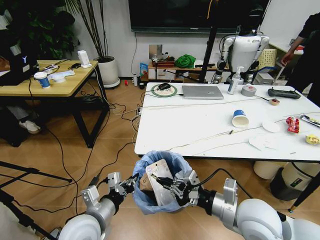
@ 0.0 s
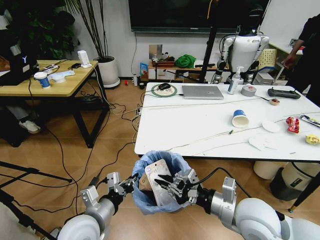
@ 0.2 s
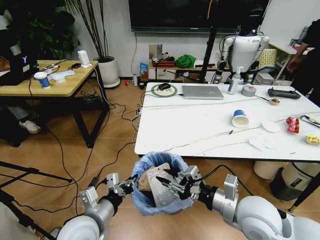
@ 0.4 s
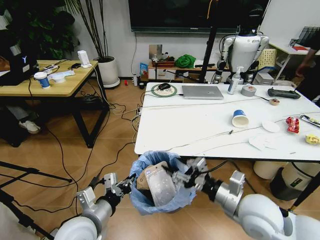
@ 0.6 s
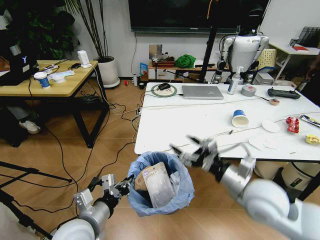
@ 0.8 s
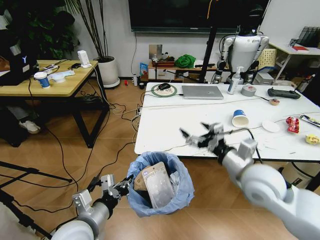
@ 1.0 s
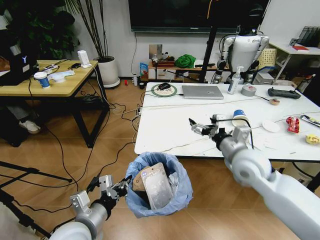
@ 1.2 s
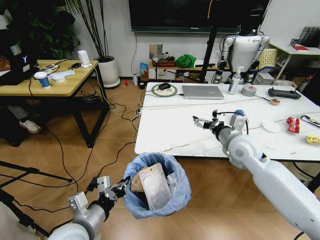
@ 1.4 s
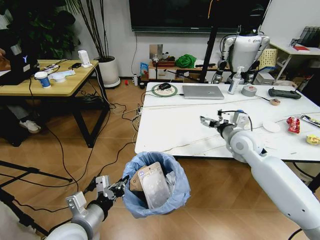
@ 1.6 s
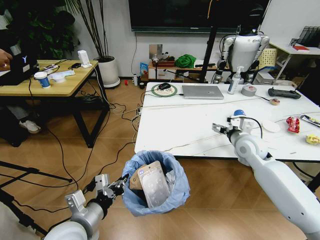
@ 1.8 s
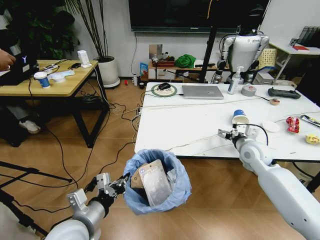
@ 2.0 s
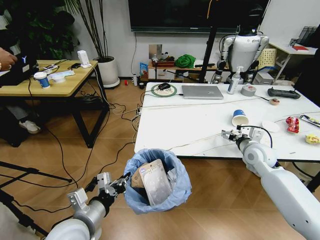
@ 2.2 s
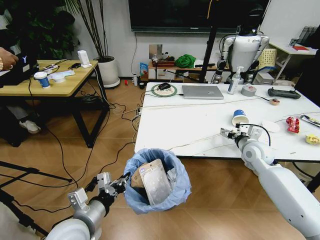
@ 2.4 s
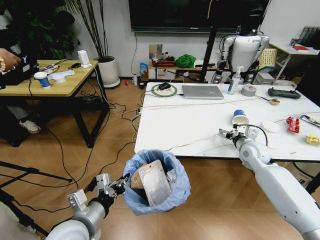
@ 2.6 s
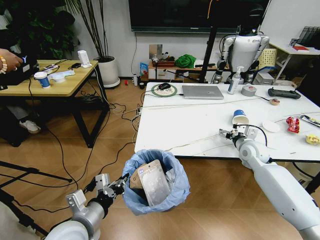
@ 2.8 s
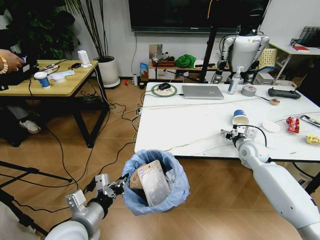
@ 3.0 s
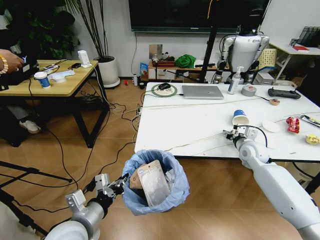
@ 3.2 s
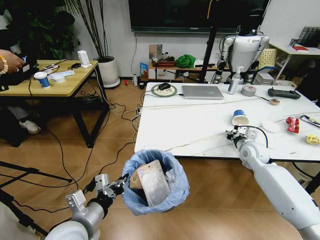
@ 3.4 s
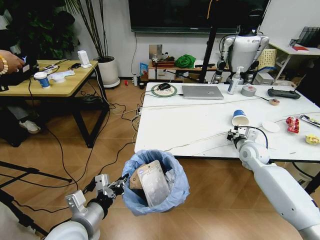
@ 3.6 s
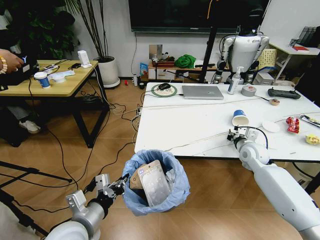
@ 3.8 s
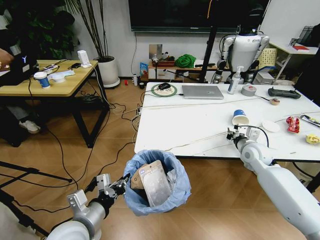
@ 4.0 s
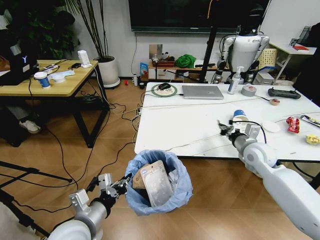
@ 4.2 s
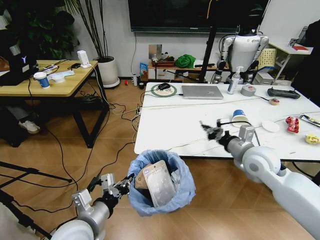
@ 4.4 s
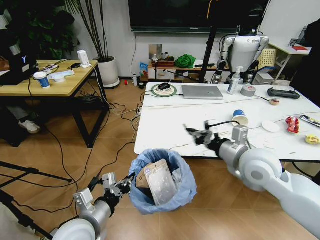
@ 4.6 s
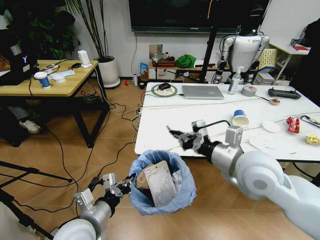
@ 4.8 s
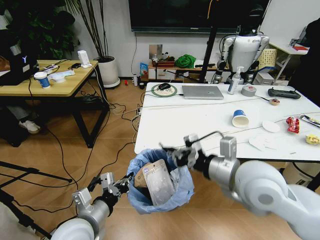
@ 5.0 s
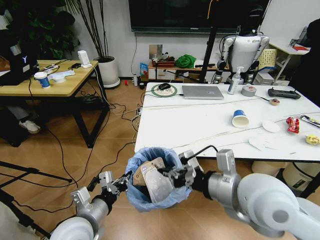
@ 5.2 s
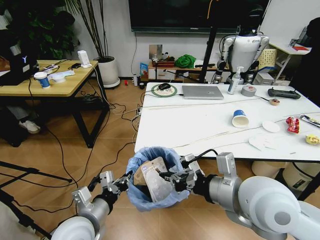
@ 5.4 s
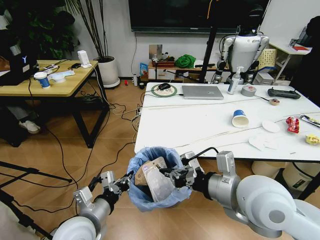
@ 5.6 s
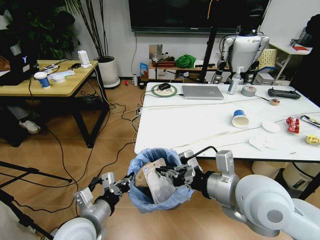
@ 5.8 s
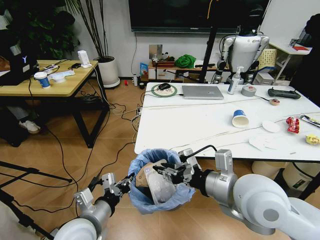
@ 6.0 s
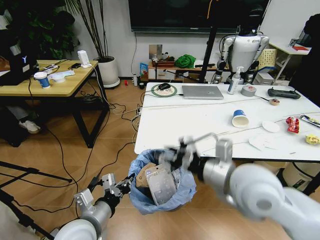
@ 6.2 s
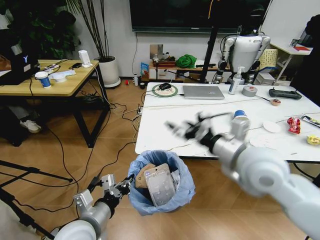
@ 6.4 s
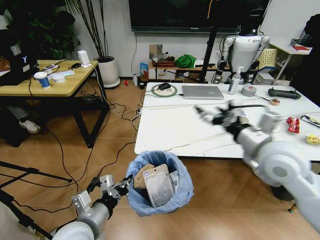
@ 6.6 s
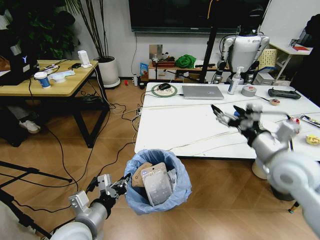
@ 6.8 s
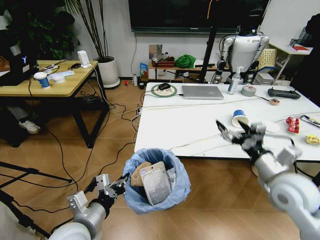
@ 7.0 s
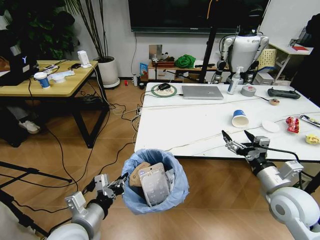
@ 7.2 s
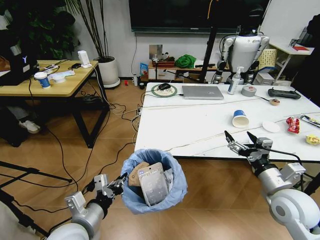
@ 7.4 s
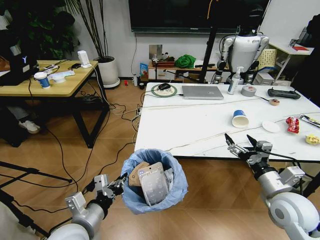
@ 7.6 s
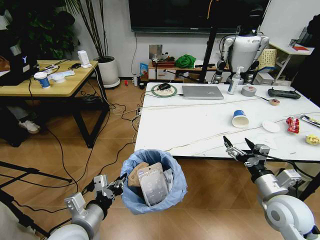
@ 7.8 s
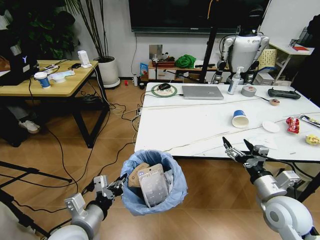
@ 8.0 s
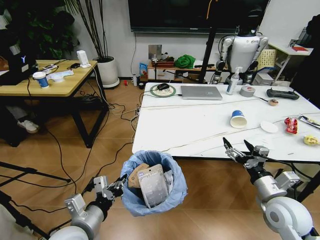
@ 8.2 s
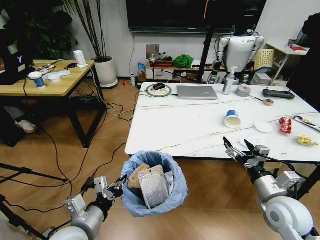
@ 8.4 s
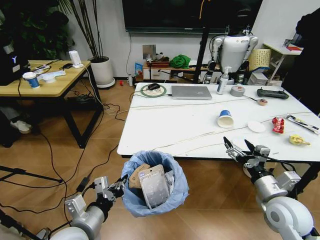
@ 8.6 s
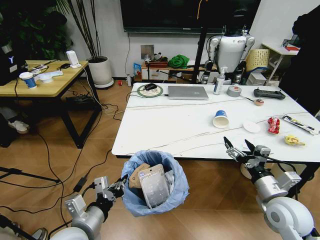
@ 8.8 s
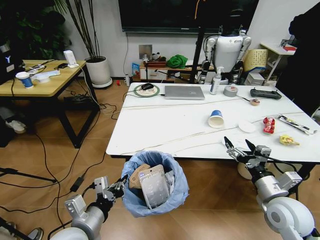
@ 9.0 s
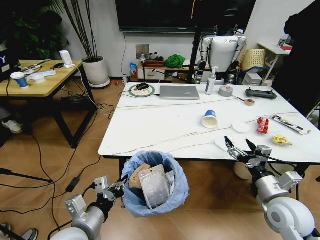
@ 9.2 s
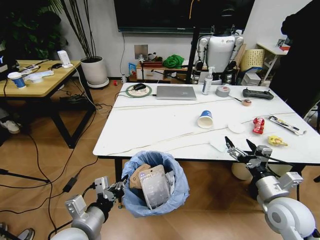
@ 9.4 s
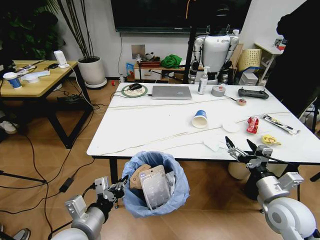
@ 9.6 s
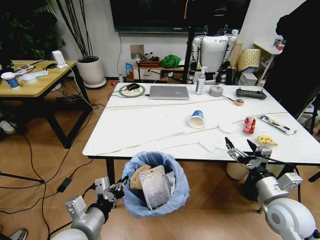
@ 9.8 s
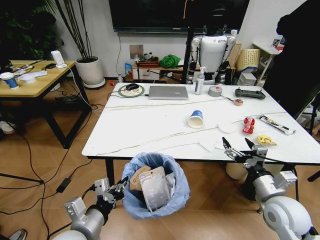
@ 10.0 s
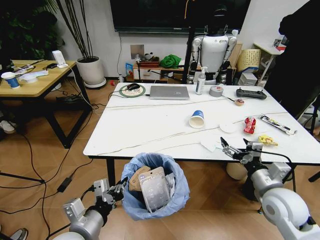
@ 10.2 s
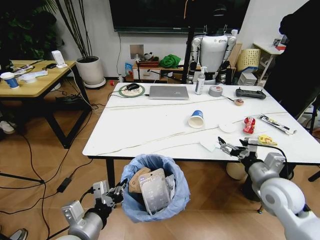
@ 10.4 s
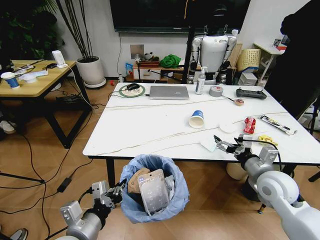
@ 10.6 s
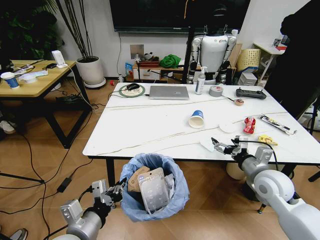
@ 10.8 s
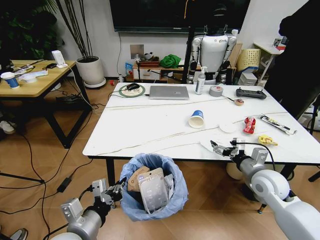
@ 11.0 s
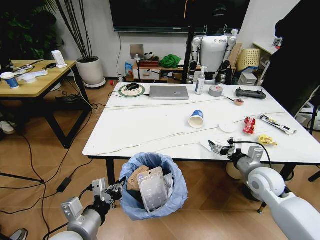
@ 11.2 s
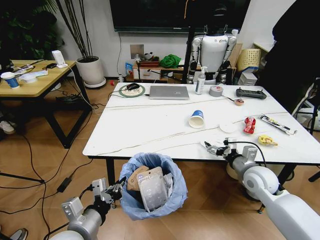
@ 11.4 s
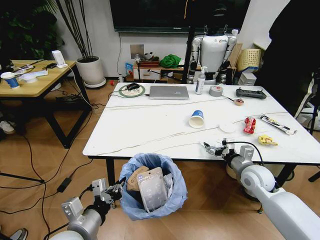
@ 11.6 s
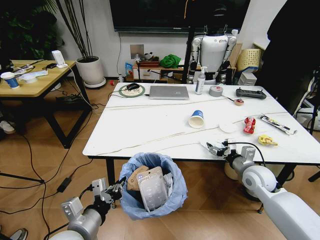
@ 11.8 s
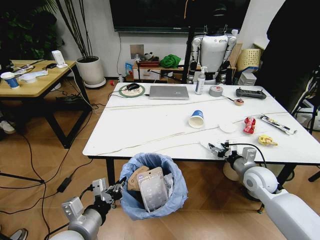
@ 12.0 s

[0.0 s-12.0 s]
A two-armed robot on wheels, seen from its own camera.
Task of the whole recording: Pick up the trash bin and place the trash from the table into it.
0.0 to 1.6 s: The right gripper moves forward, approximately 20 cm, and opens up.
1.6 to 3.0 s: The right gripper moves downward and to the right, approximately 10 cm.
3.0 to 4.4 s: The right gripper moves backward, upward and to the left, some 15 cm, and closes up.
4.4 to 6.0 s: The right gripper is displaced backward, to the left and upward by some 20 cm.
6.0 to 7.6 s: The right gripper shifts about 20 cm to the right and downward, and opens its fingers.
10.4 to 12.0 s: The right gripper heads forward and downward, covering roughly 10 cm.

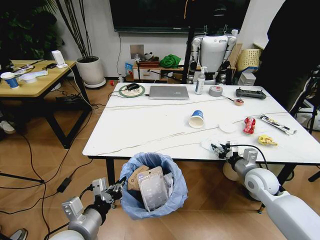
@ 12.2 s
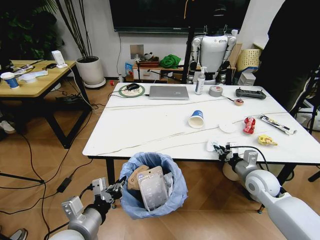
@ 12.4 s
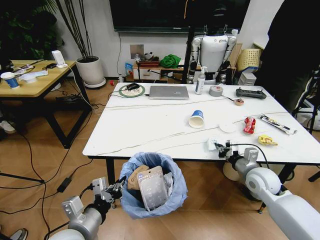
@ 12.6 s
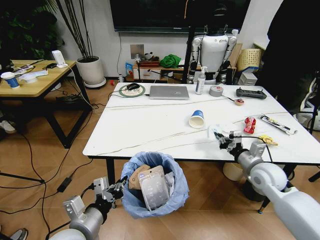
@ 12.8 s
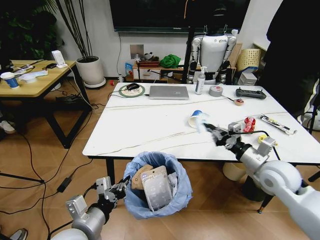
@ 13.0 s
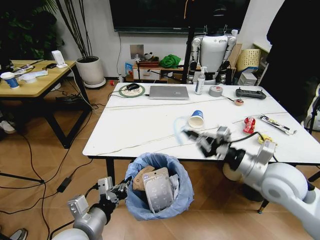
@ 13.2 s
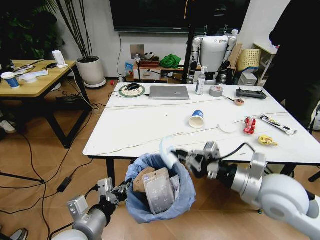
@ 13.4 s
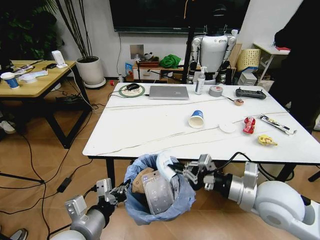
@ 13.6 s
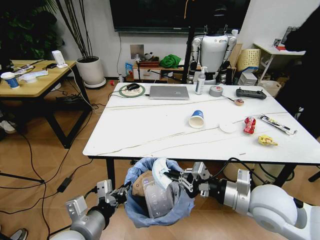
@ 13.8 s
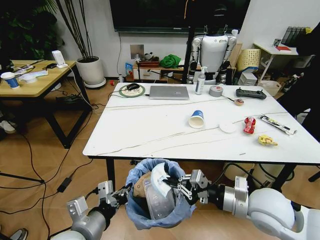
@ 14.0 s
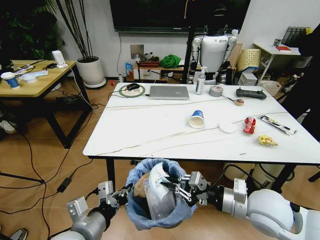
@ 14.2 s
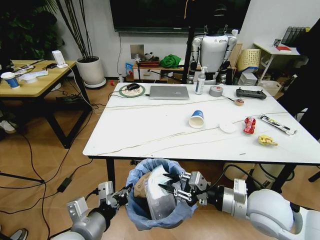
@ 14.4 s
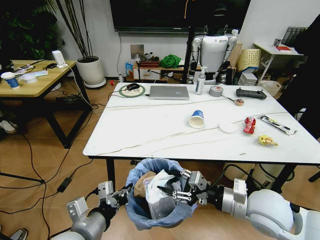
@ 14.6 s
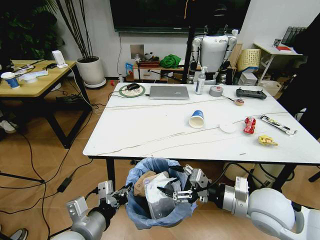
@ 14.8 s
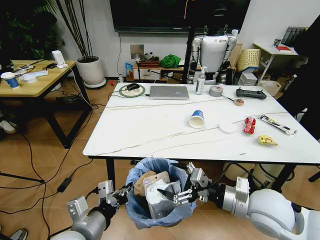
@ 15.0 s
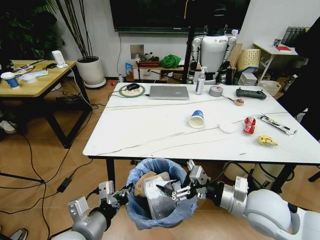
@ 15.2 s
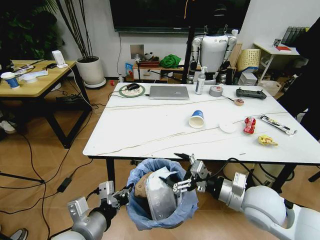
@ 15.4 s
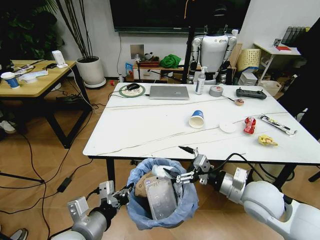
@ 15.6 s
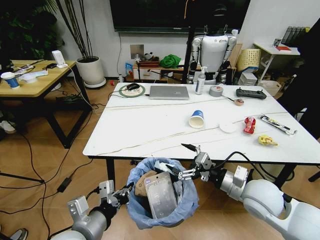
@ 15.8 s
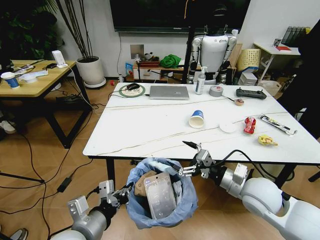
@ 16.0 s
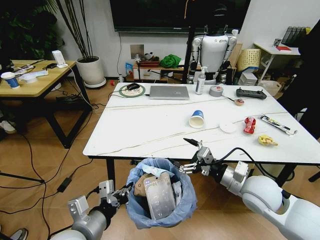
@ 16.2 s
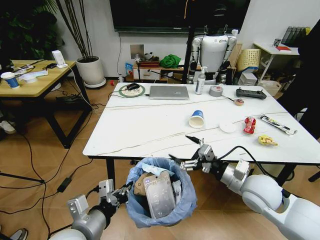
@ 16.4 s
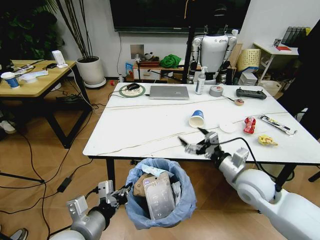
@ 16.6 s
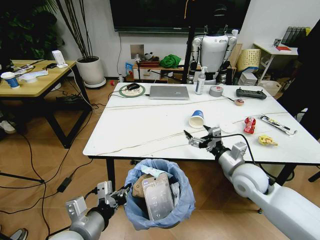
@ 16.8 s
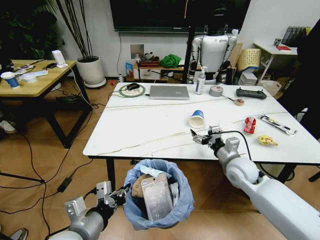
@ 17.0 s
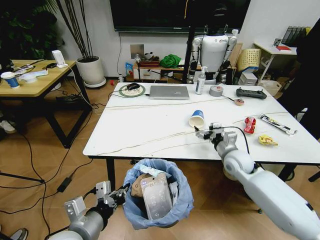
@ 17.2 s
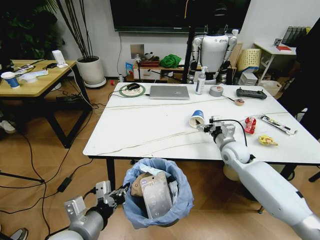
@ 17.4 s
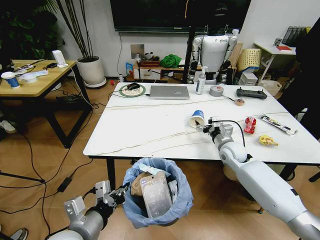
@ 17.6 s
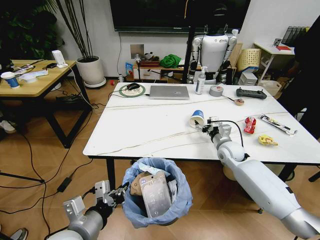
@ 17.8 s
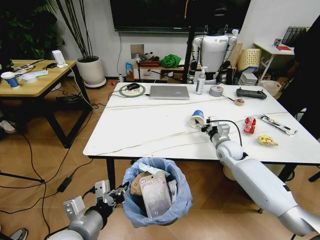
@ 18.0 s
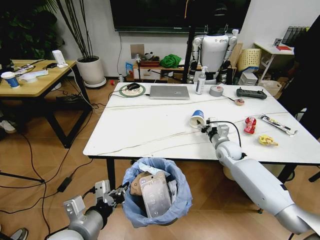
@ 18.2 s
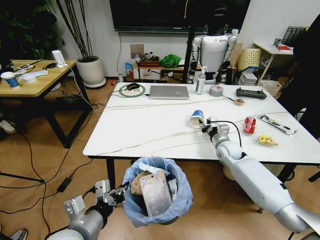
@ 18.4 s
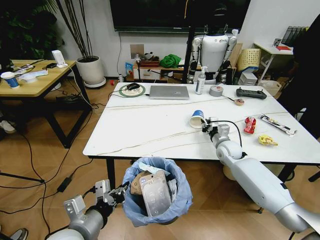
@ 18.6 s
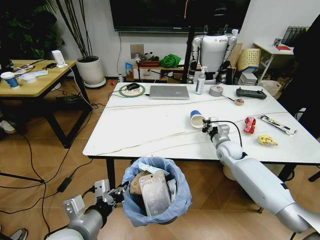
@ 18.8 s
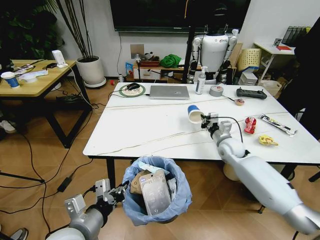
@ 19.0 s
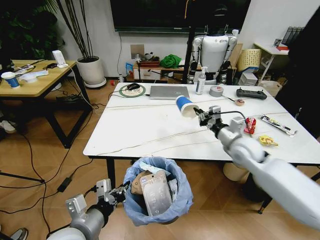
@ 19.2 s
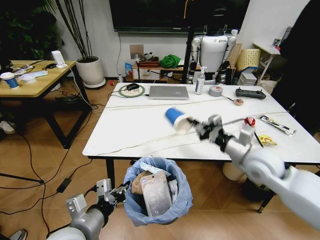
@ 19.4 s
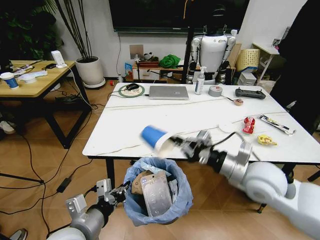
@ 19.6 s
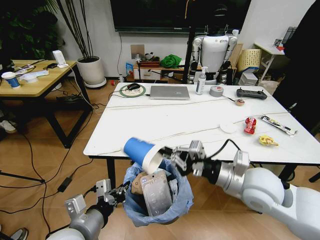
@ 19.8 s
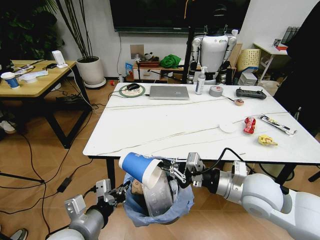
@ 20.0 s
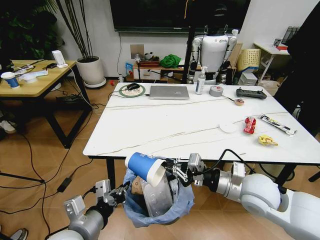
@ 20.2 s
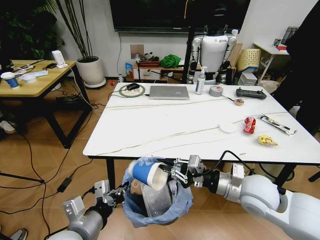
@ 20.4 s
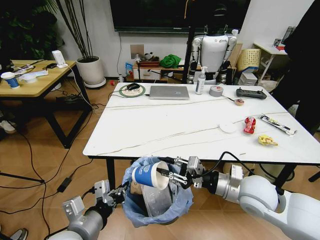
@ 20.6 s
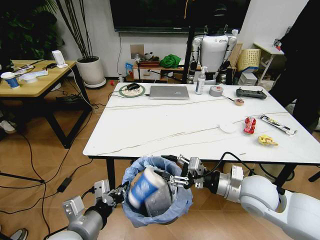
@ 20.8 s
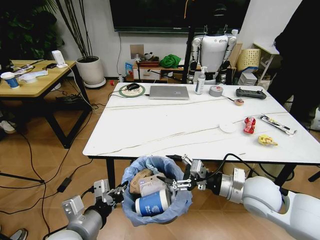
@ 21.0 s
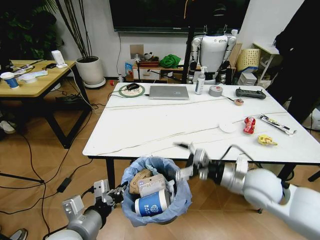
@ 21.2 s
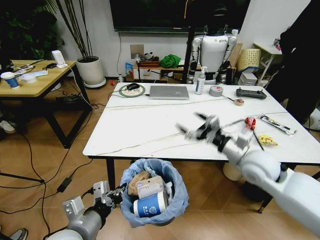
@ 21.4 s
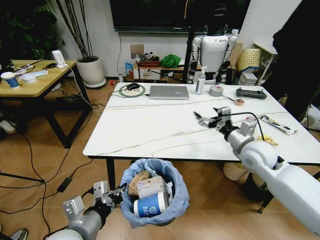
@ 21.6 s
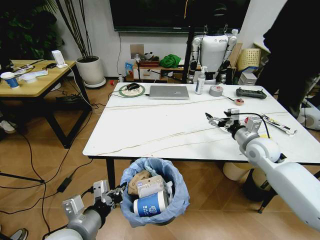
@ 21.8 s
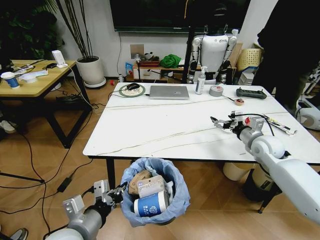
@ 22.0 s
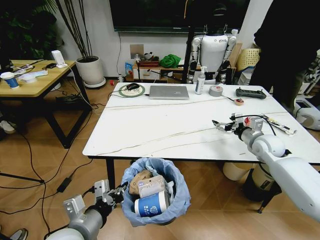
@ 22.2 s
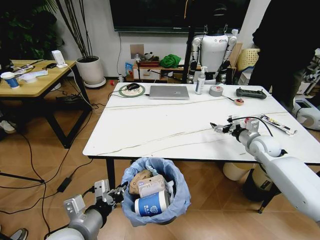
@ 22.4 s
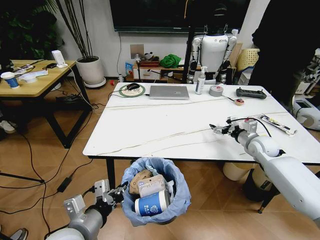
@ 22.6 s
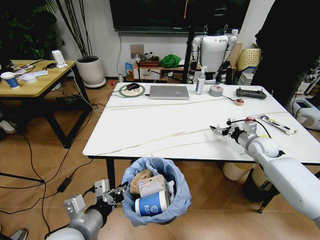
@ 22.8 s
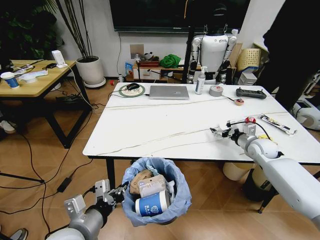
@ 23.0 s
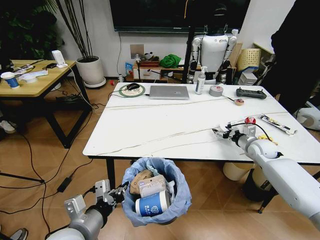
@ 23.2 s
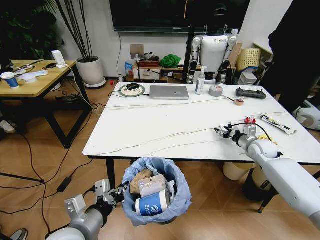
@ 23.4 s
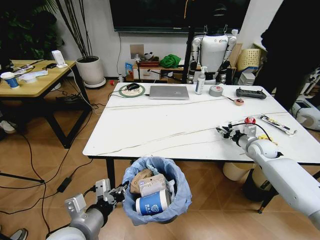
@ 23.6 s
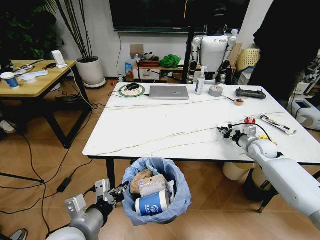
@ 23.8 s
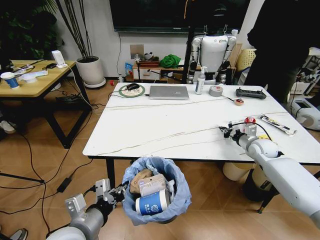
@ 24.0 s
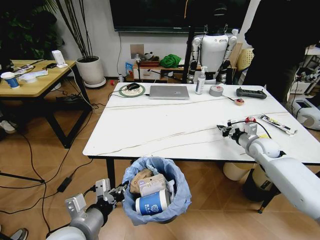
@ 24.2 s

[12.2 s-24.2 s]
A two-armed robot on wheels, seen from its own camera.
Task of the whole recording: Pick up the trash bin and place the trash from the table into it.
12.2 to 13.8 s: The right gripper heads backward, upward and to the left, covering about 20 cm, and closes.
13.8 to 15.2 s: The right gripper opens its fingers.
15.2 to 16.6 s: The right gripper shifts some 5 cm forward.
16.6 to 18.2 s: The right gripper moves forward and downward, about 20 cm, and closes its fingers.
18.2 to 19.8 s: The right gripper goes about 25 cm backward and upward, and closes up.
19.8 to 21.2 s: The right gripper shifts by about 5 cm, and opens up.
21.2 to 22.6 s: The right gripper moves forward and to the right, some 20 cm.
22.6 to 24.2 s: The right gripper closes its fingers.
